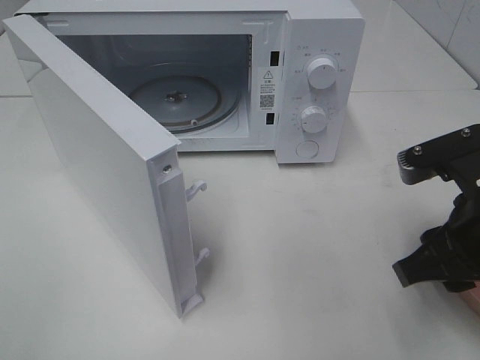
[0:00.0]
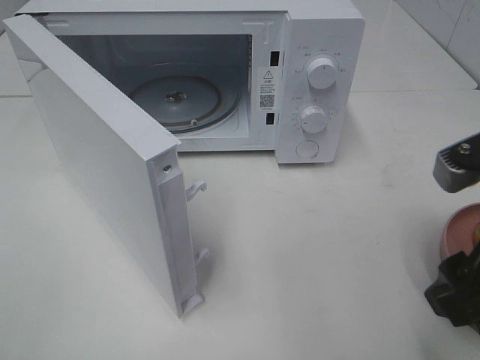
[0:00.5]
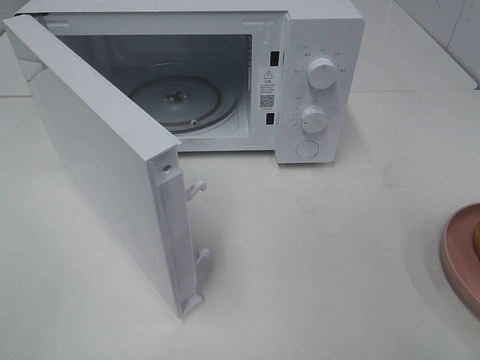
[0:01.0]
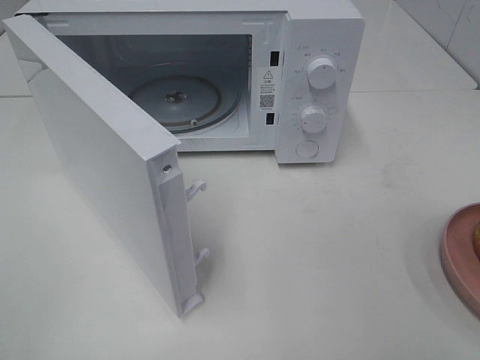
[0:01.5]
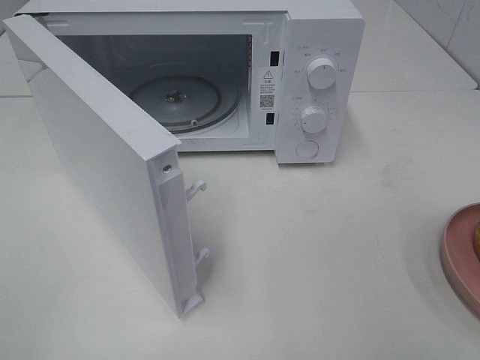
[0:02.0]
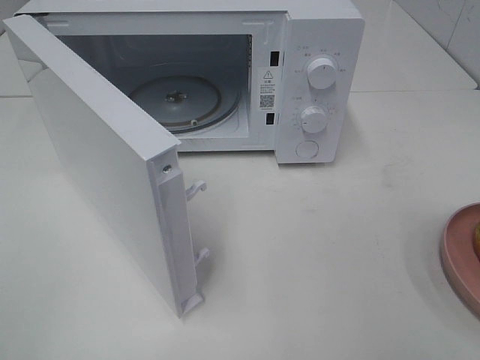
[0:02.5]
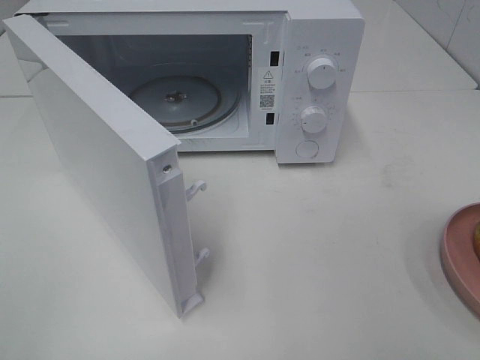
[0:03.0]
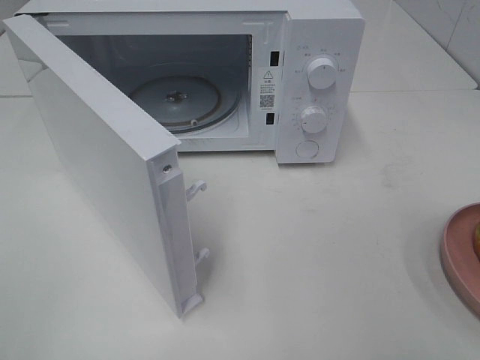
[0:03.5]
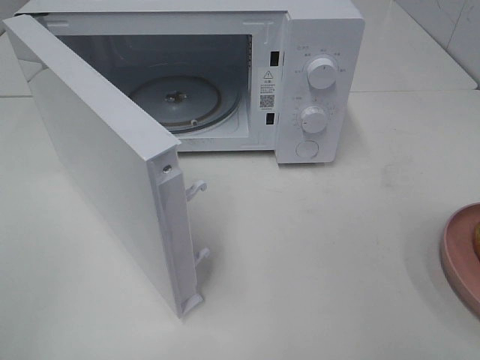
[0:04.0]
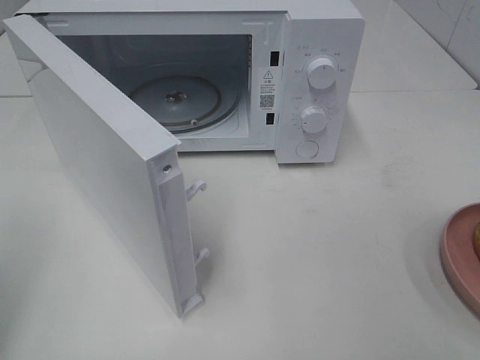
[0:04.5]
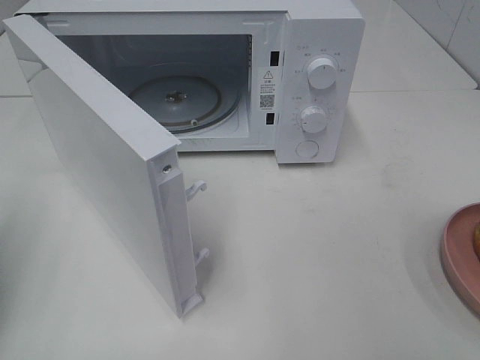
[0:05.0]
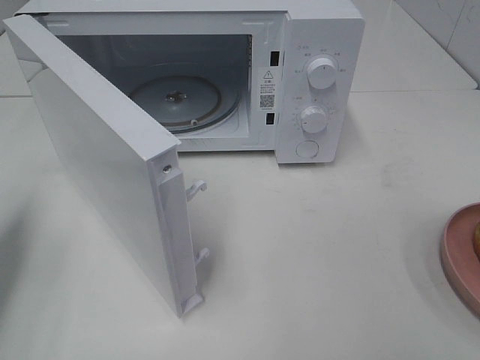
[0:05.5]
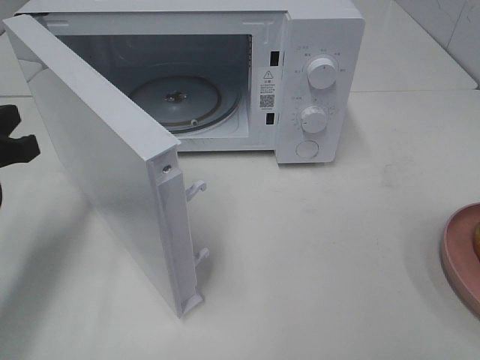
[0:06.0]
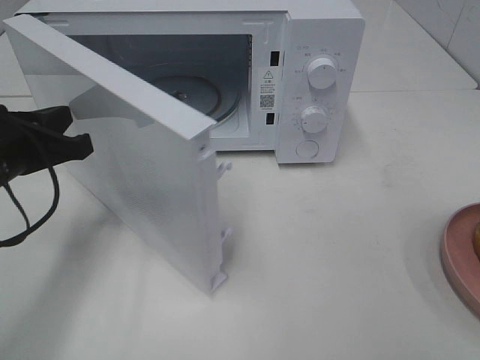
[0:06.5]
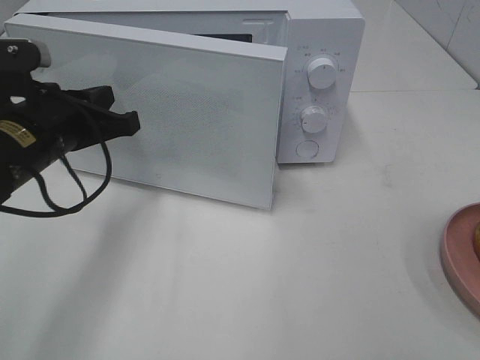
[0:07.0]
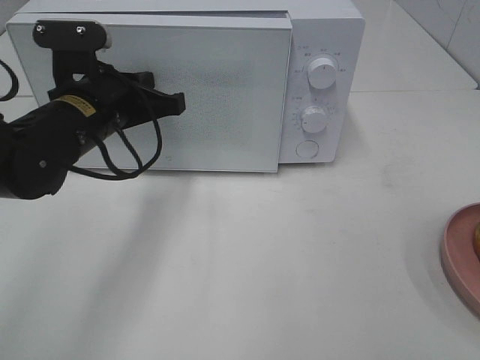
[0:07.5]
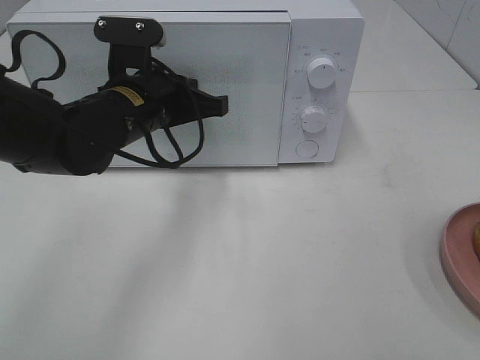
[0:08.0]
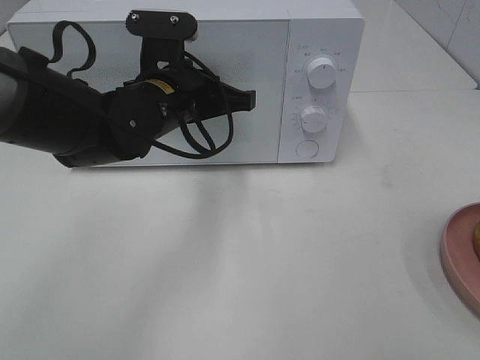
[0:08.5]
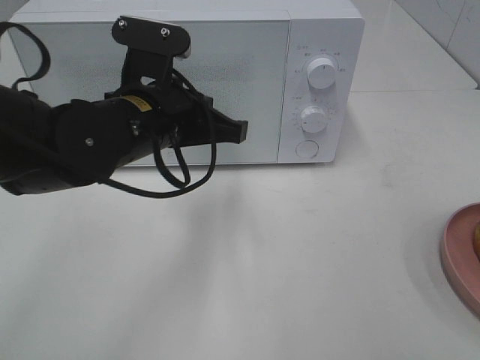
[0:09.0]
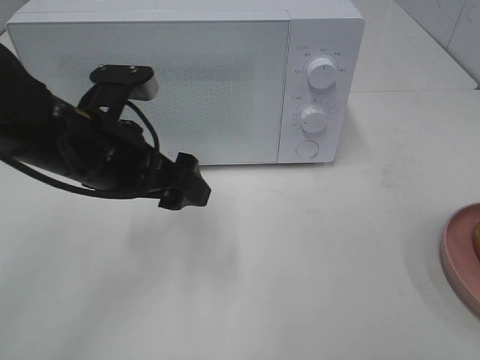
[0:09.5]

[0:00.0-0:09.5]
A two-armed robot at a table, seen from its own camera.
Task of the whole recording: Heat the burger.
Step, 0:00.0 to 0:08.5: Left hand: close the microwave door.
0:00.0 to 0:02.0: The right gripper goes approximately 20 cm backward, upward and to the right.
0:04.0 to 0:05.5: The left gripper is displaced forward and downward by approximately 20 cm, and closes its fingers.
0:05.5 to 0:07.5: The left gripper travels to the right and forward by roughly 20 cm.
0:07.5 to 0:09.5: The left gripper moves backward, some 5 cm, and opens.

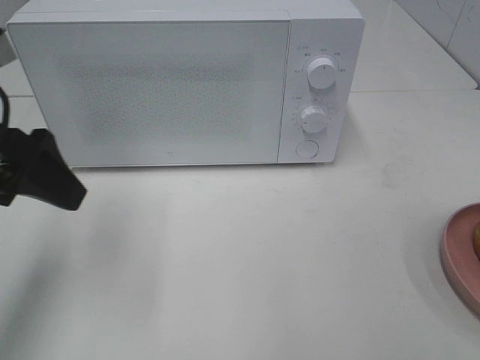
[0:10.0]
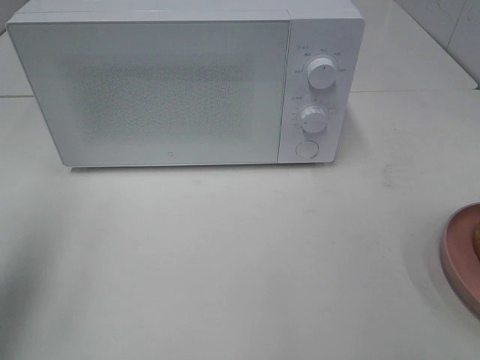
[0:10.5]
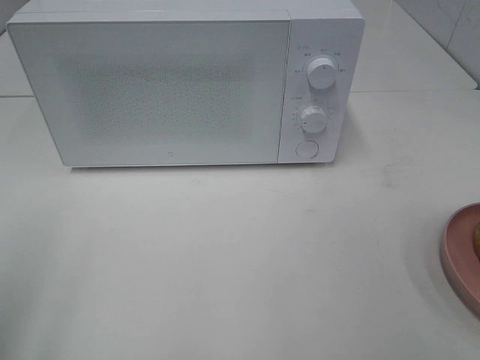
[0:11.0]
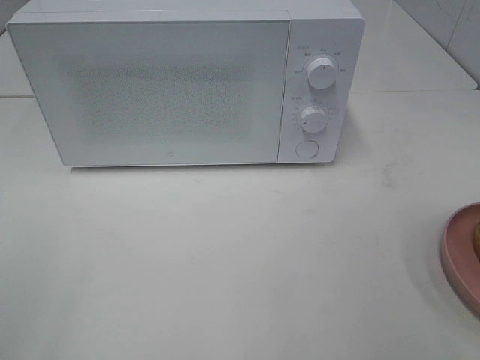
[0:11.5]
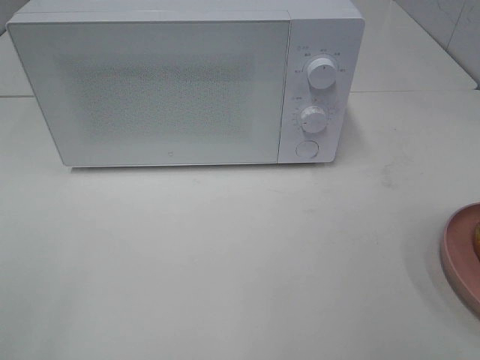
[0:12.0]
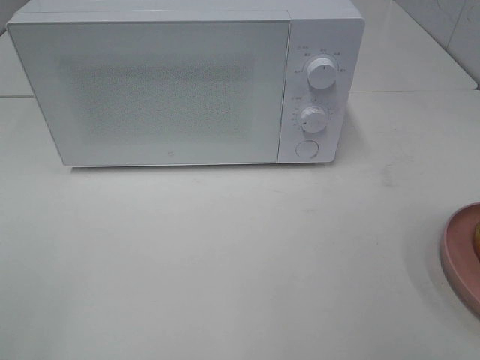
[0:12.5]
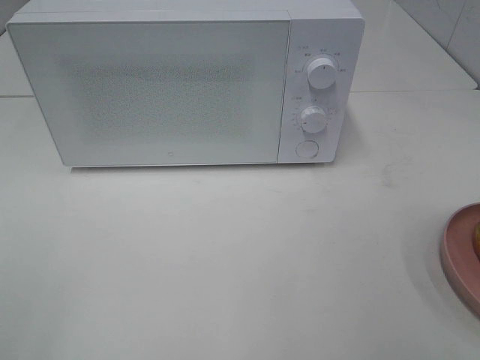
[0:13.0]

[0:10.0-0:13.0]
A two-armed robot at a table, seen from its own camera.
Task of the whole recording: Heat the burger.
0:10.0 to 0:11.5: The left gripper is displaced backward by approximately 20 cm.

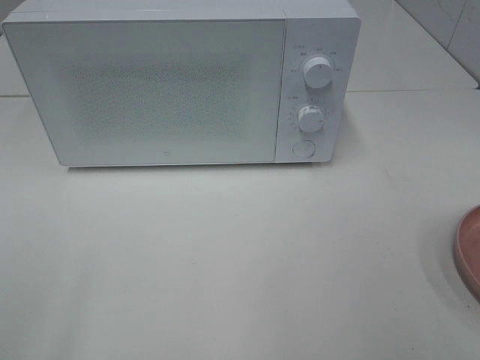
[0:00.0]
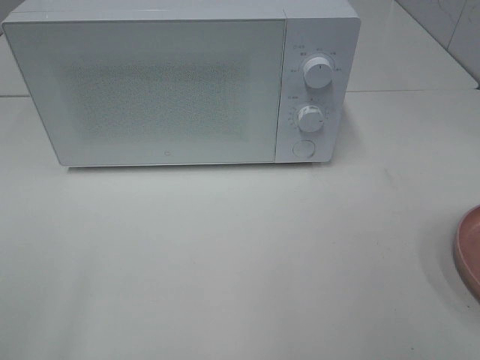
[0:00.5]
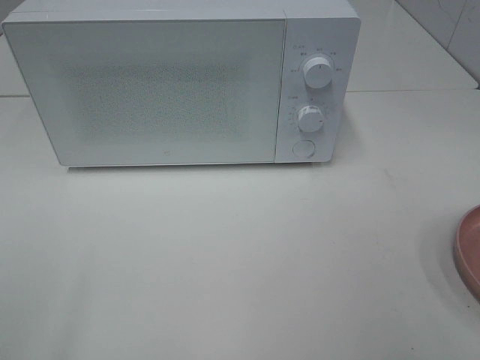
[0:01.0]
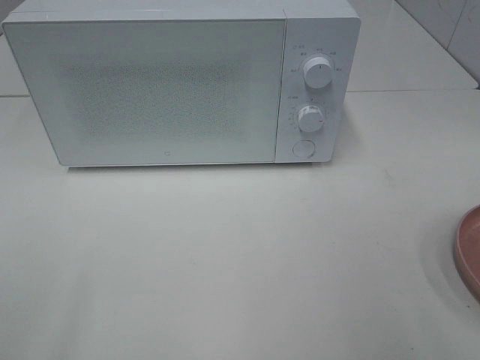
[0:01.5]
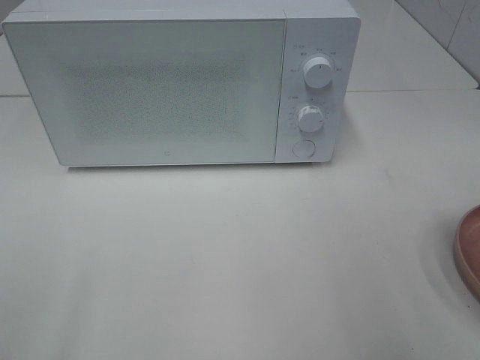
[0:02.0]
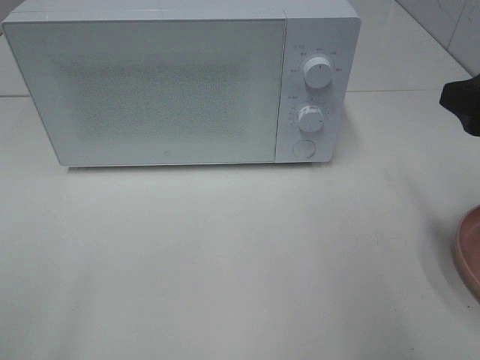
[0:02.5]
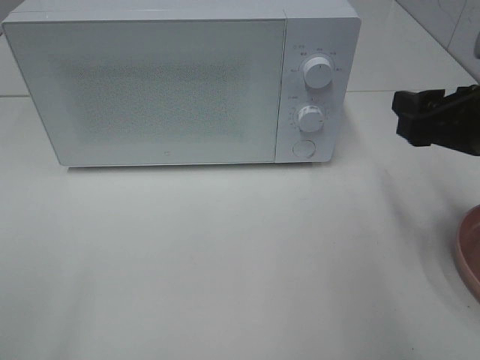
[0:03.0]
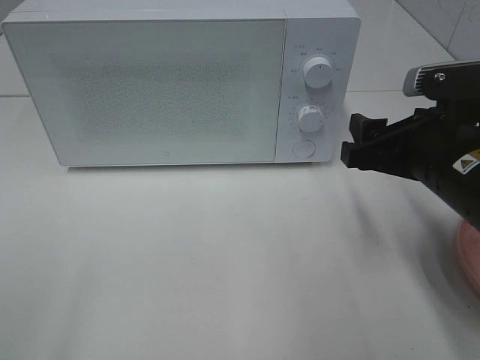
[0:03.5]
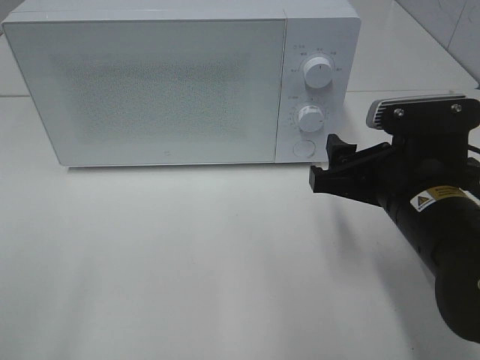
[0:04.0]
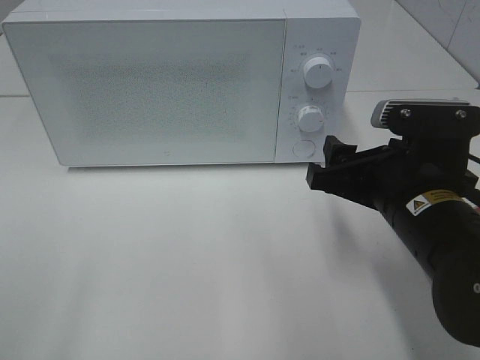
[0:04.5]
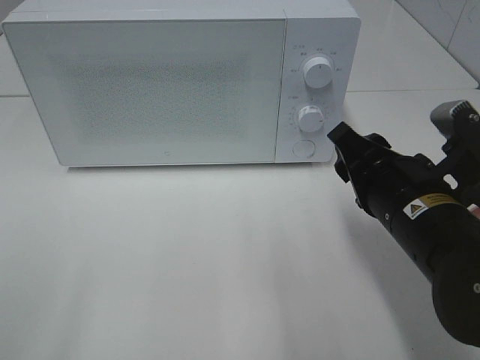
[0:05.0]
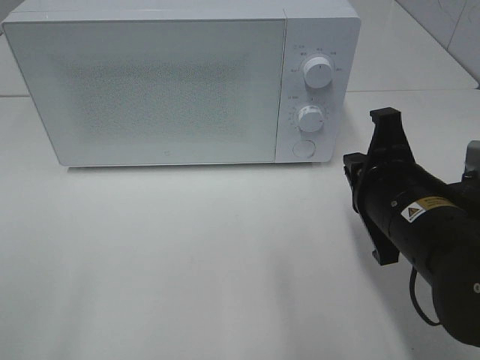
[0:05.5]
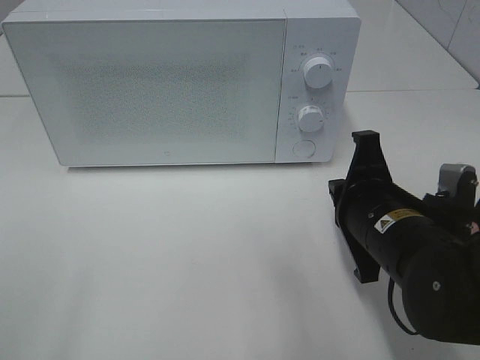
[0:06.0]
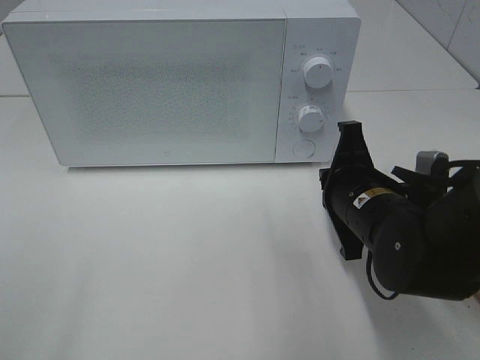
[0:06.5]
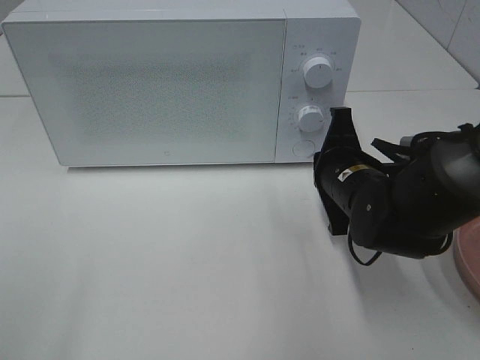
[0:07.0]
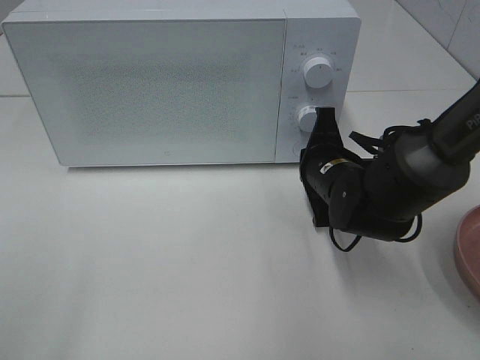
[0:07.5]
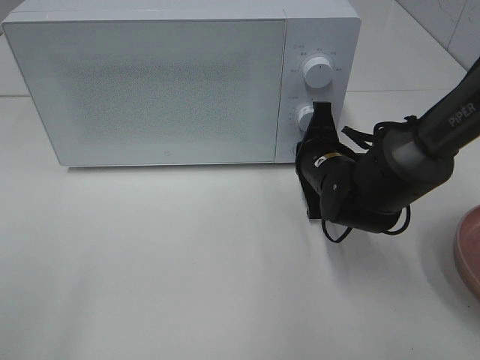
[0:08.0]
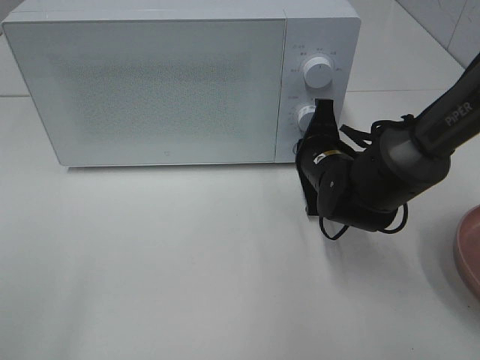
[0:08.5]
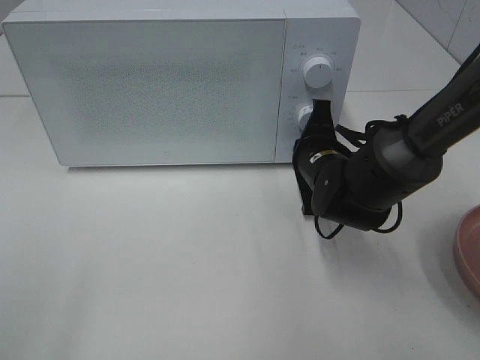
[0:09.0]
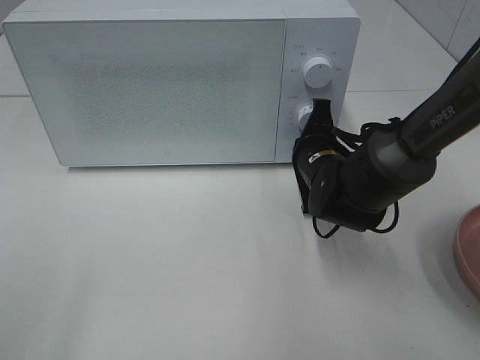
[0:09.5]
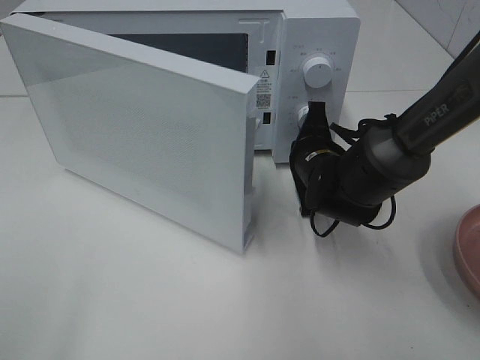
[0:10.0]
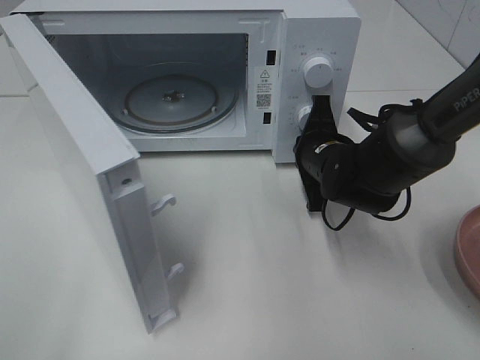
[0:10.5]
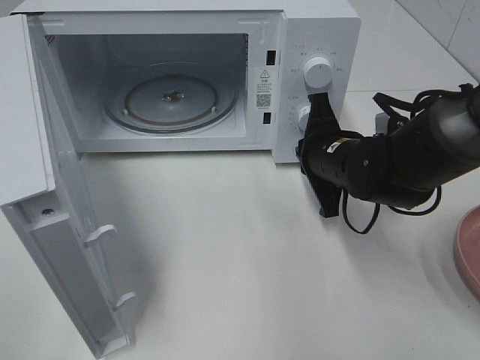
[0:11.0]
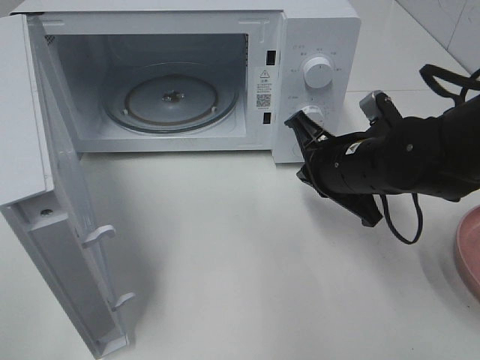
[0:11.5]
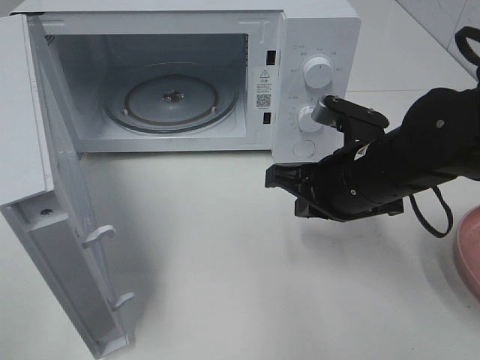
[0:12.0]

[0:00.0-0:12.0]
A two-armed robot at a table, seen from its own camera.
Task of the whole recording: Heat the burger.
Step, 0:00.0 to 0:10.5: Right hand: press the switch.
0:02.0 to 0:04.0: The right gripper moves to the left, downward and forward, approximately 15 cm.
0:04.0 to 0:06.0: The right gripper closes its fingers.
0:06.0 to 0:08.0: The right gripper moves forward, roughly 15 cm.
0:08.0 to 0:10.0: There are only small adjustments of the grippers.
0:10.0 to 0:12.0: The right gripper travels backward and upward by approximately 10 cm.

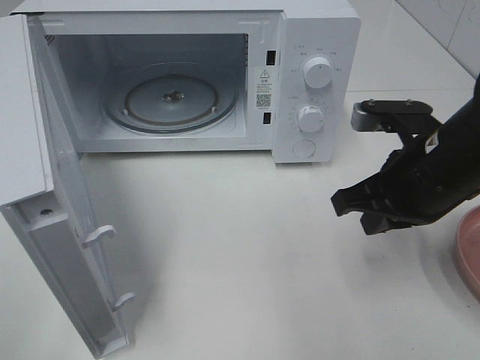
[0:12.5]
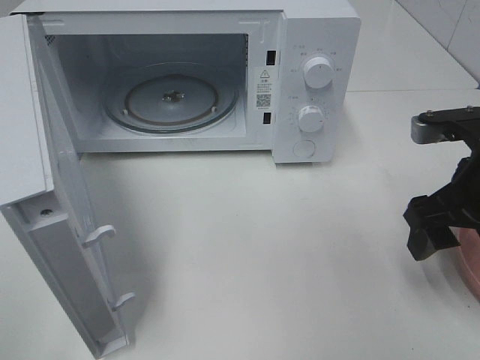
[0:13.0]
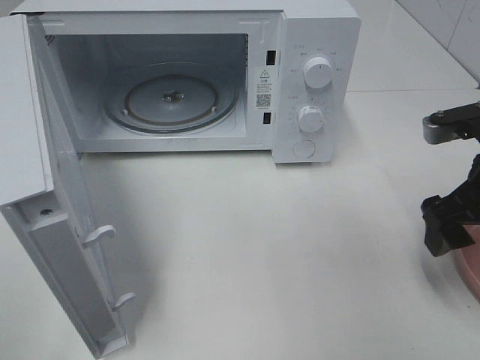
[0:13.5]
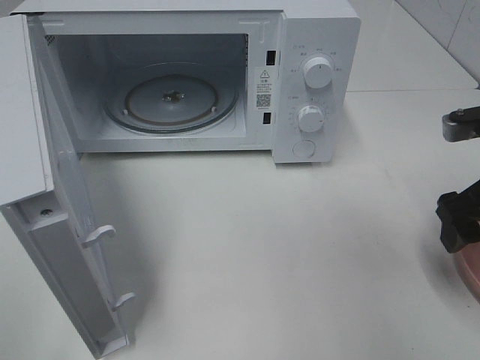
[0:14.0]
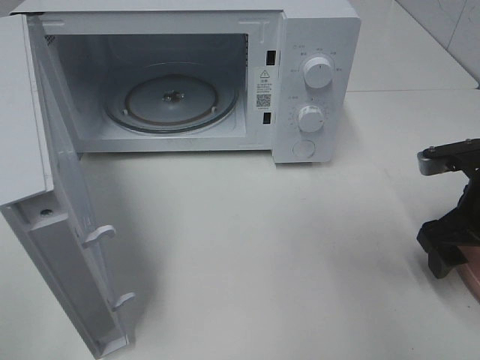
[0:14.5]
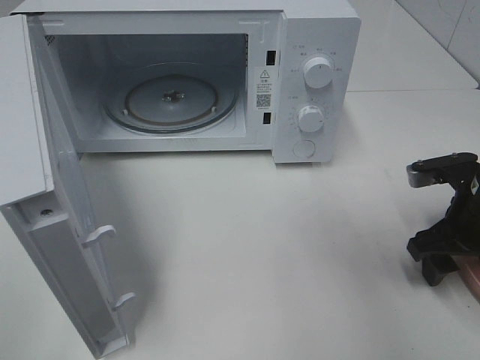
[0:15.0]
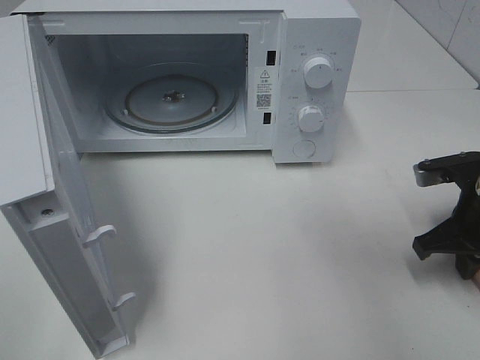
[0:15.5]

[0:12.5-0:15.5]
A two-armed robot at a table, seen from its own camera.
Task of the whole recording: Heat the burger.
0:12.5 to 0:14.0: The right gripper shifts about 10 cm to the right, and opens its fingers.
0:14.0 to 0:15.5: The right gripper travels downward by roughly 5 cm, and closes up.
